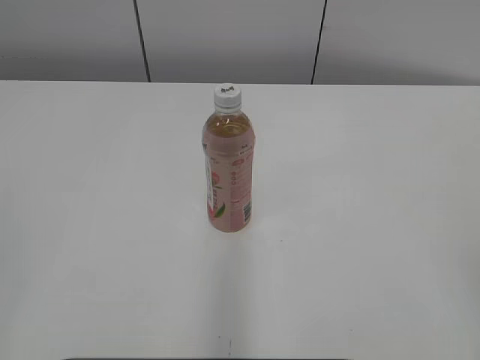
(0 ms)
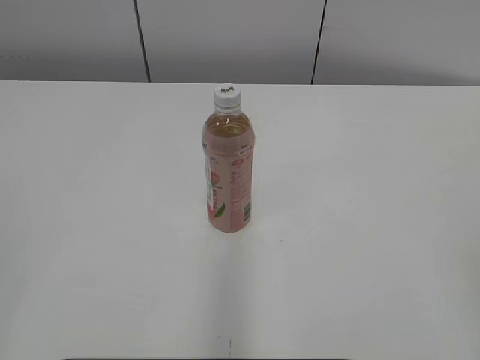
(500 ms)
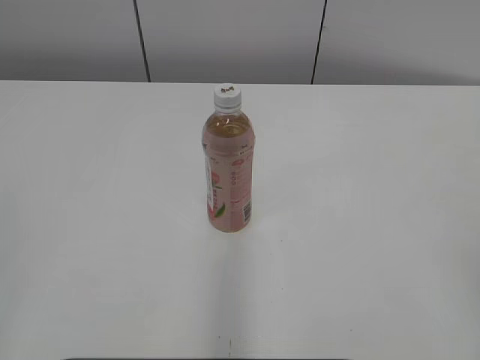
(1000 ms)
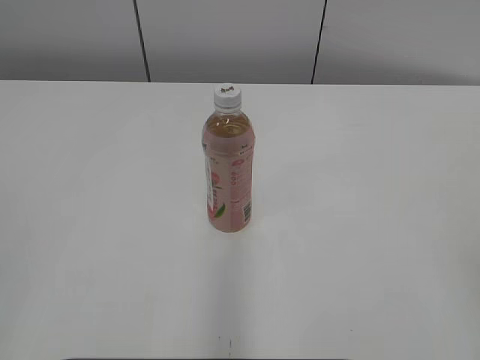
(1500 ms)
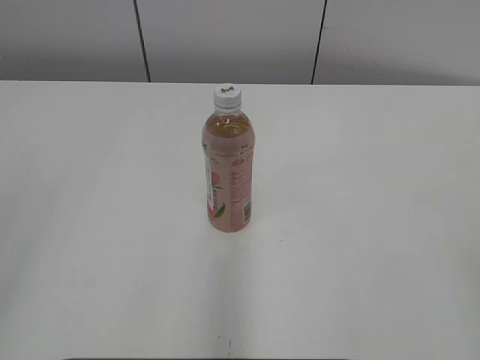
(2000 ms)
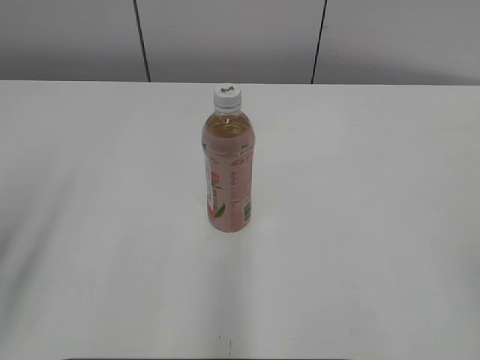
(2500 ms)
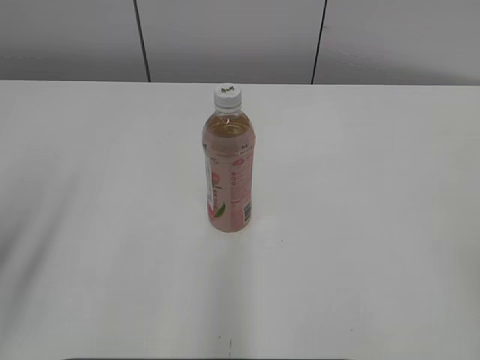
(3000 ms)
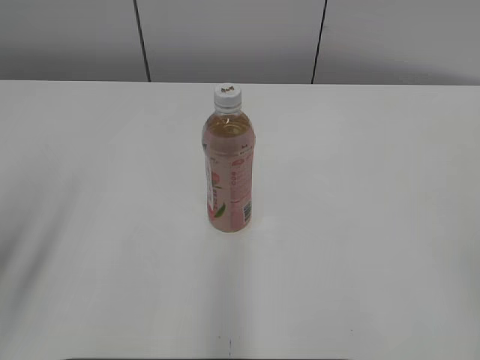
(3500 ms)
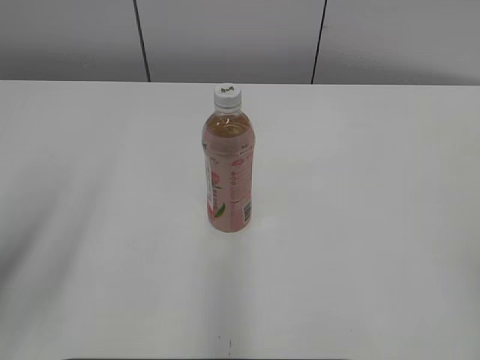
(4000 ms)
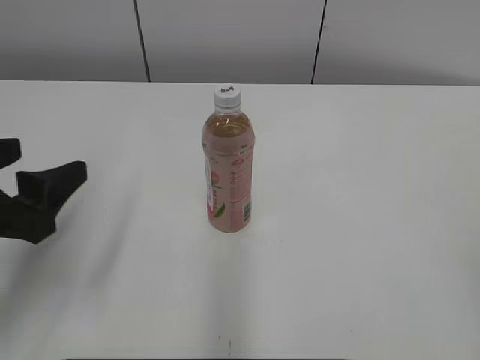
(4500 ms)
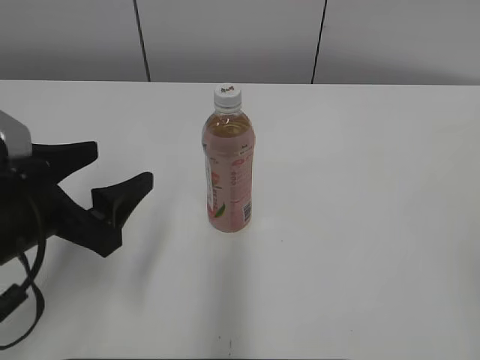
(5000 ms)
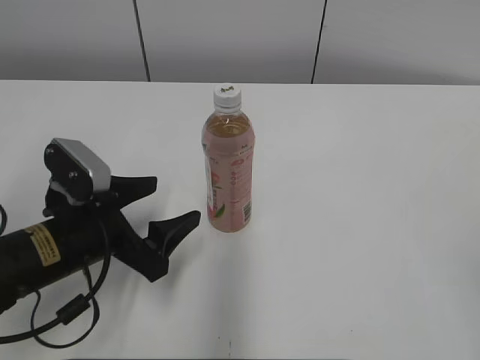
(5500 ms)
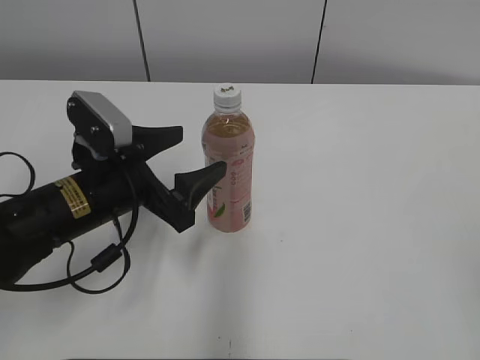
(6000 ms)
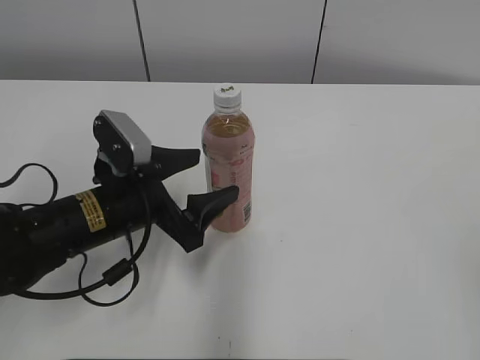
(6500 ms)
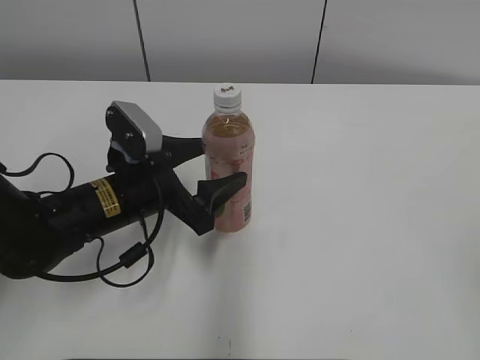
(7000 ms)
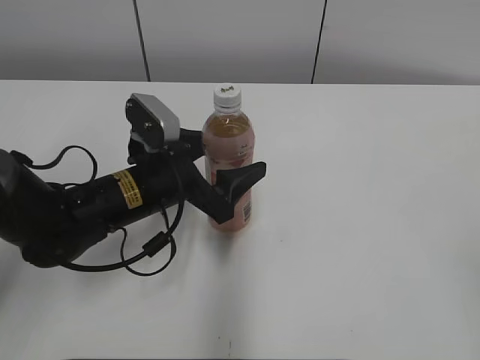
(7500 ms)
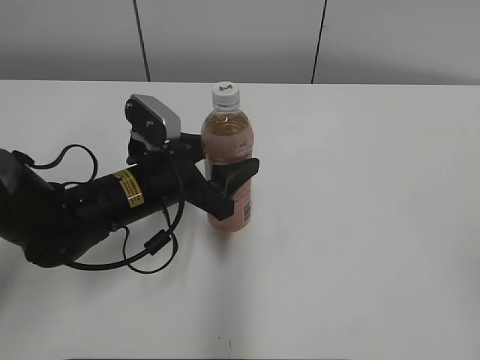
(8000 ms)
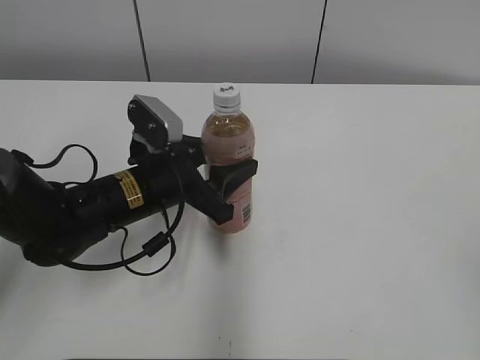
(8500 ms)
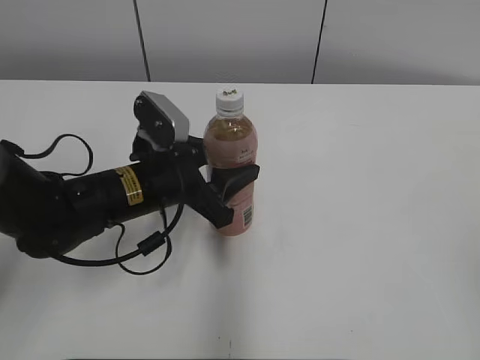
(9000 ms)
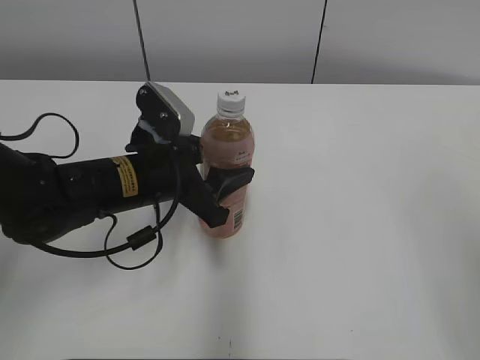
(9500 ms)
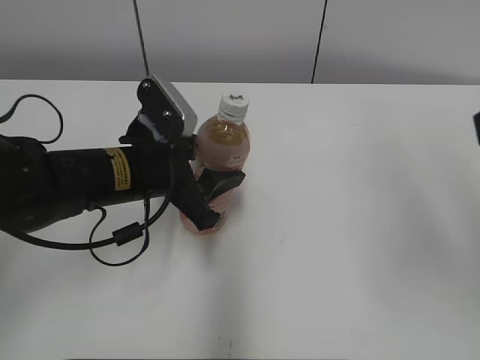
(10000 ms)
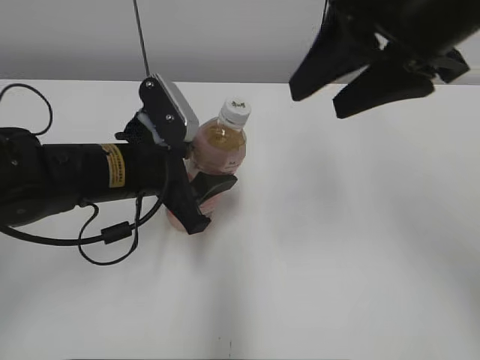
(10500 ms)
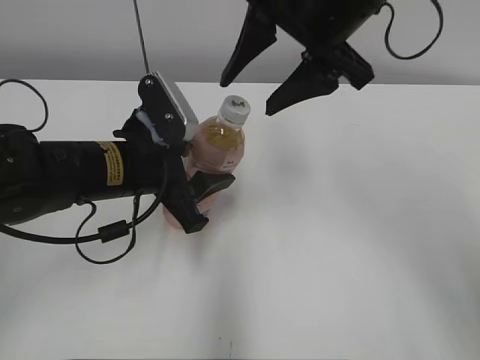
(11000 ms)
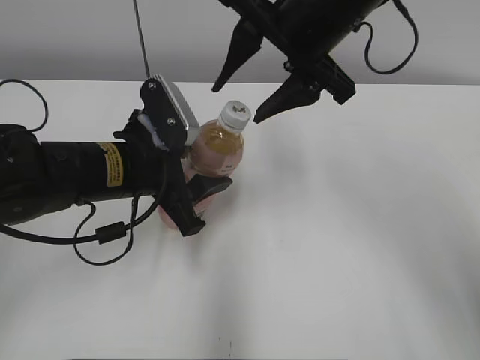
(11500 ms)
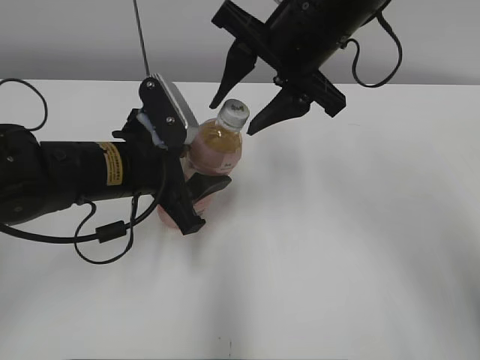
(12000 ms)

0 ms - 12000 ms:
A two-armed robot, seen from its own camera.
Step, 0 ms - 8000 ms: Grab the Peach Oolong Tea with the left hand.
2000 ms - 4000 ms: The left gripper shifts approximately 10 cm forward and downward.
4000 ms - 6000 ms: The left gripper goes approximately 25 cm forward, to the right and downward, and opens its fingers.
6000 ms - 8000 ms: The left gripper shifts by roughly 5 cm.
8000 ms - 10000 ms: The right gripper shifts roughly 20 cm forward and upward.
10000 ms - 12000 ms: The right gripper moves to the left and forward, some 25 cm.

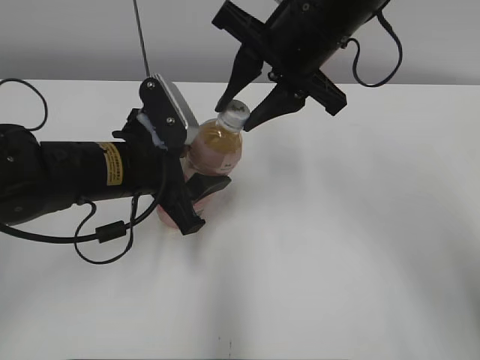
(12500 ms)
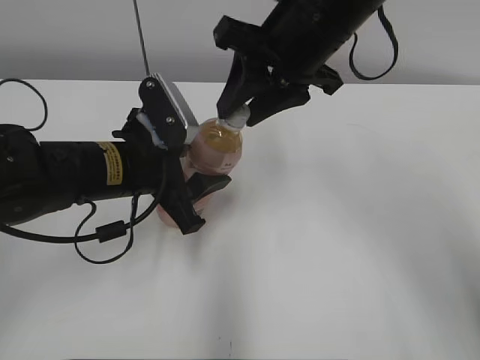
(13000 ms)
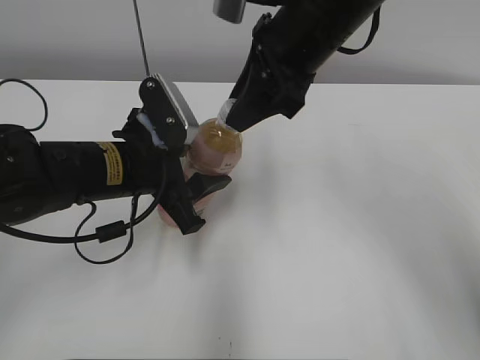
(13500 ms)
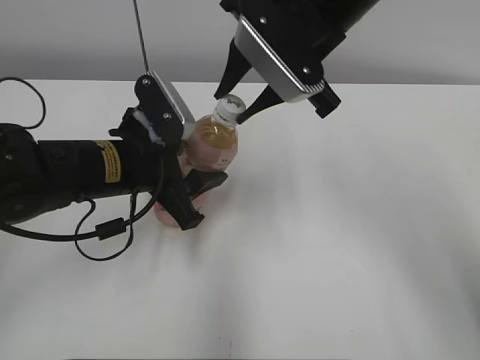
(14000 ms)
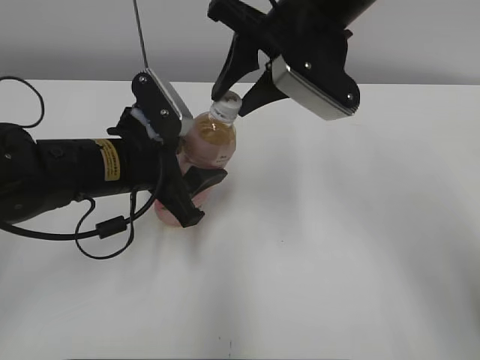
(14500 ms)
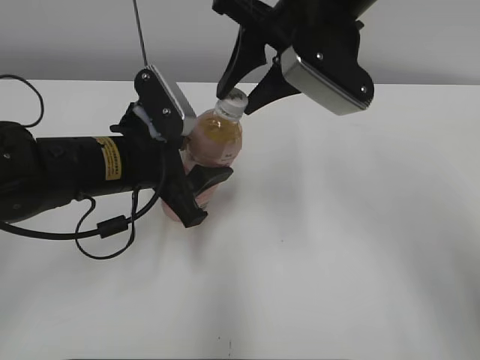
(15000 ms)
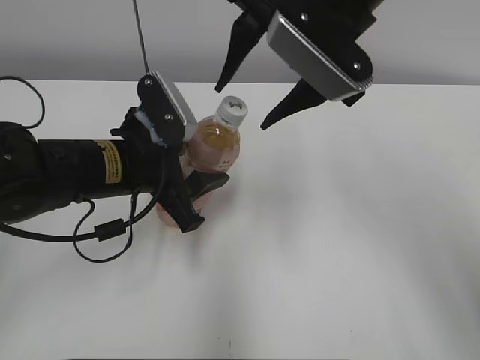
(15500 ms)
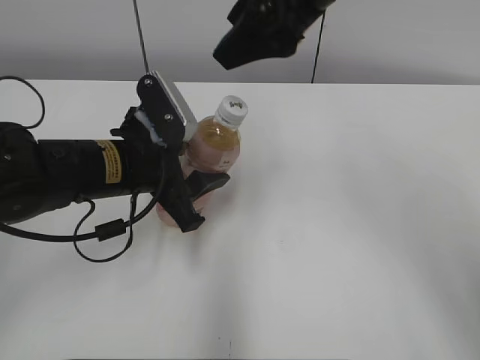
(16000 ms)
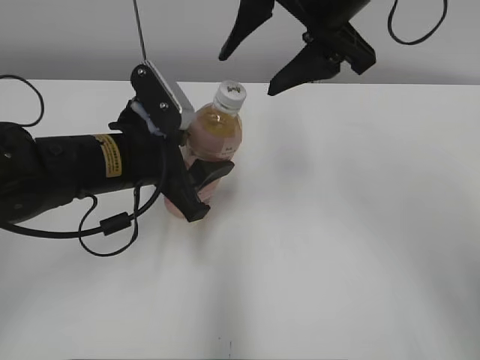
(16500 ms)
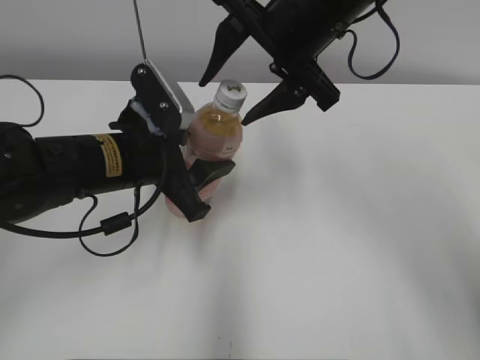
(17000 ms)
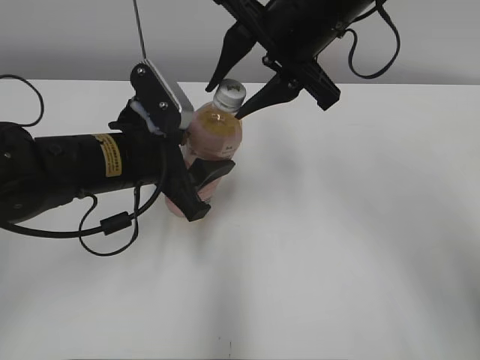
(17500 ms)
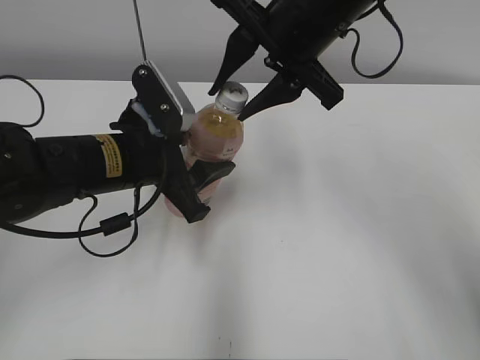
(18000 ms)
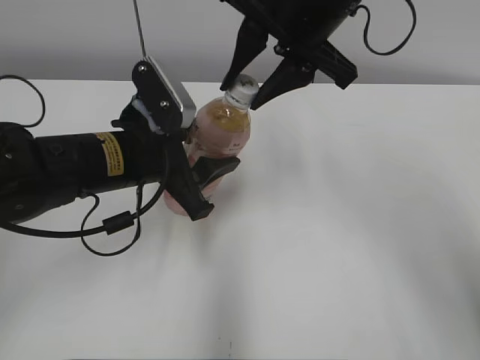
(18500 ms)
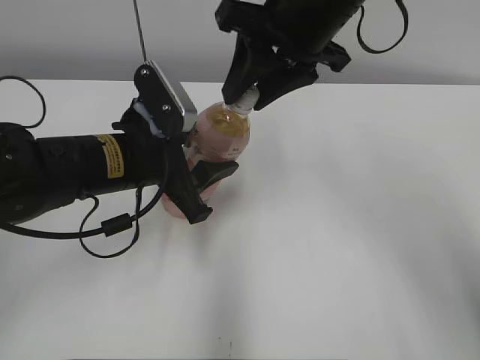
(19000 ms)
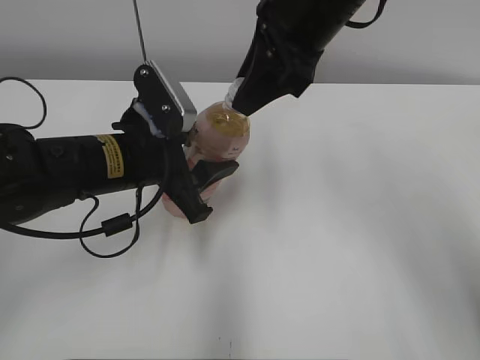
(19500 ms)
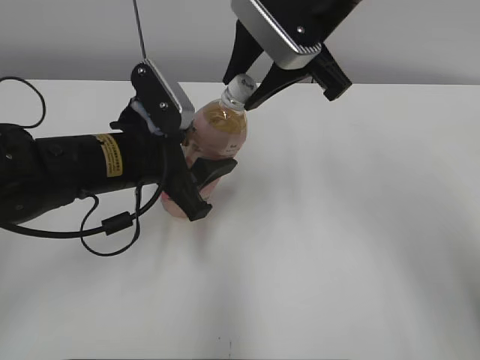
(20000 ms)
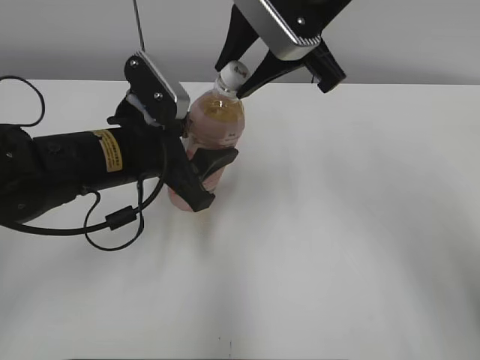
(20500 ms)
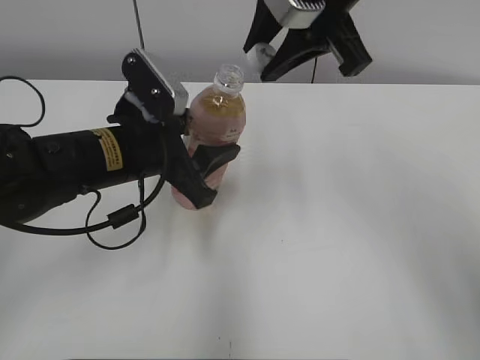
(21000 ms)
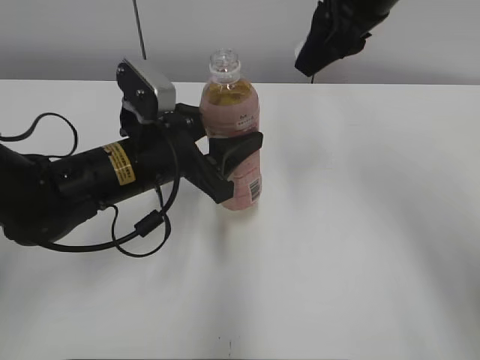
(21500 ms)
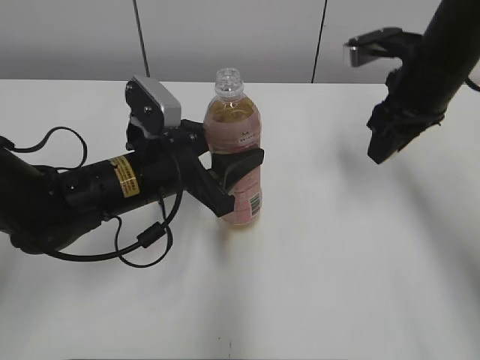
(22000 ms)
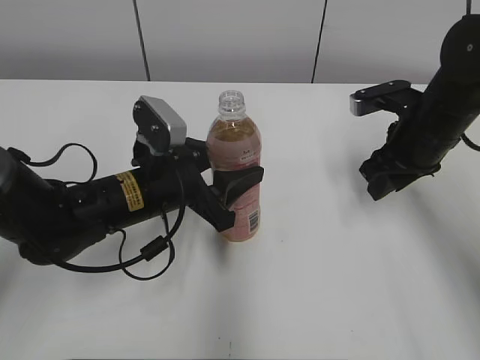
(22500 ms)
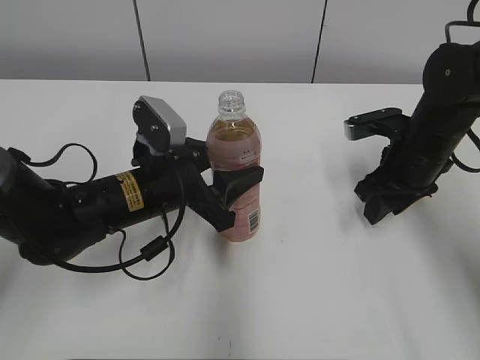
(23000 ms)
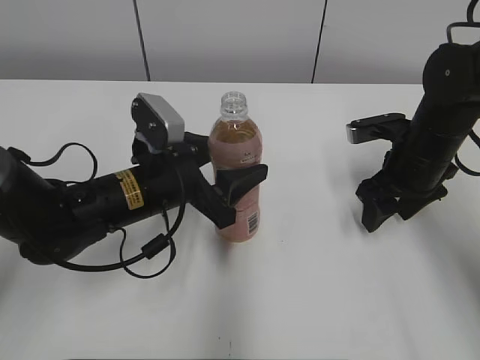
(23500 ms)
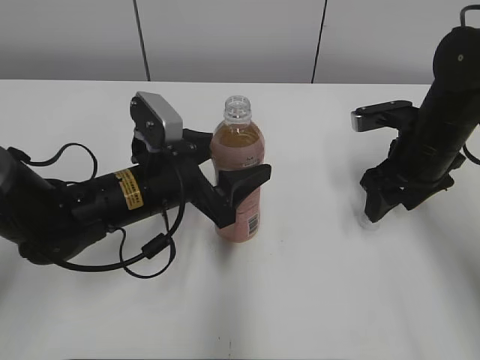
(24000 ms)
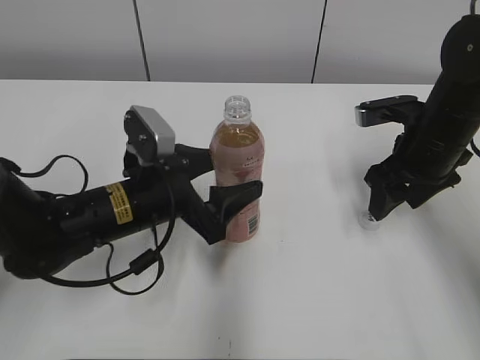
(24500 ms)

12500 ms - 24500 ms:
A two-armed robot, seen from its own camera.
Step, 12500 ms - 21000 ms: Secure the Peach Oolong Tea with the left hand.
Step, 21500 ms - 23500 ms: Place the bottle cap on the right.
Step, 24000 ms - 24500 ms: Place the Peach Oolong Tea with the left hand.
14500 ms - 16500 ms: The right gripper moves roughly 5 cm, and opens its fingers.
16500 ms - 18500 ms: The right gripper closes up.
20500 ms - 22500 ms: The right gripper moves downward and to the right, about 20 cm; the left gripper moves downward, roughly 5 cm.
22500 ms - 24500 ms: The right gripper opens its fingers. Meanwhile the left gripper opens its fingers.

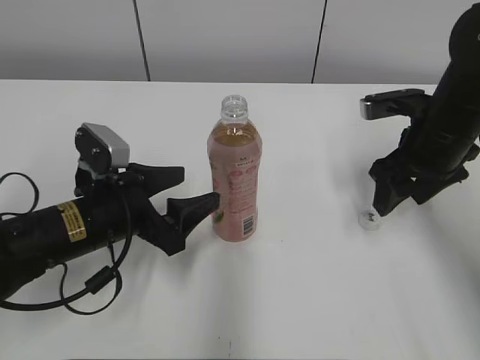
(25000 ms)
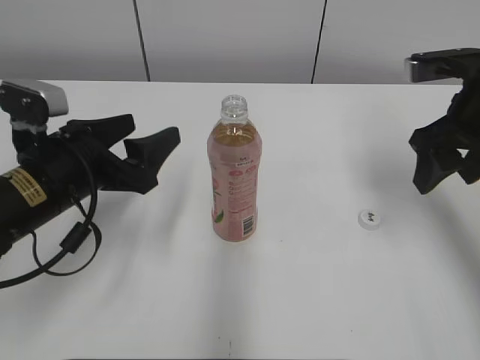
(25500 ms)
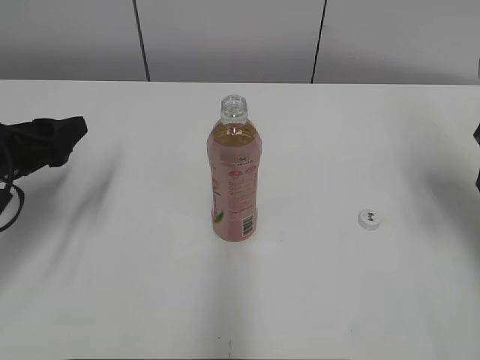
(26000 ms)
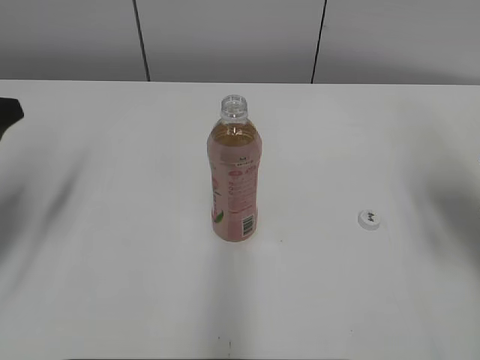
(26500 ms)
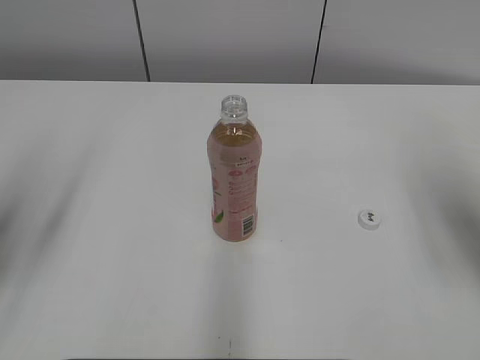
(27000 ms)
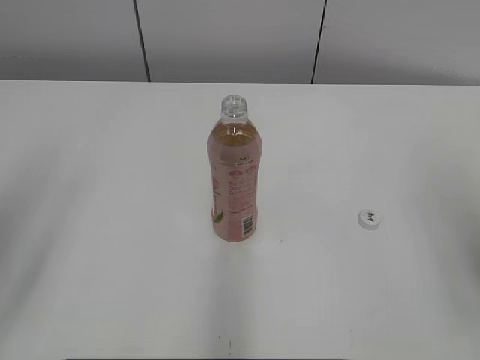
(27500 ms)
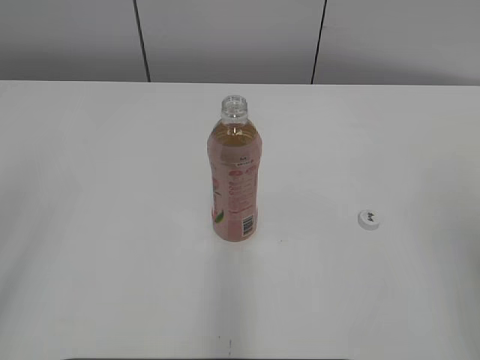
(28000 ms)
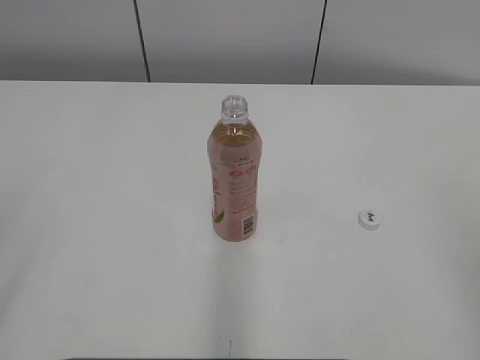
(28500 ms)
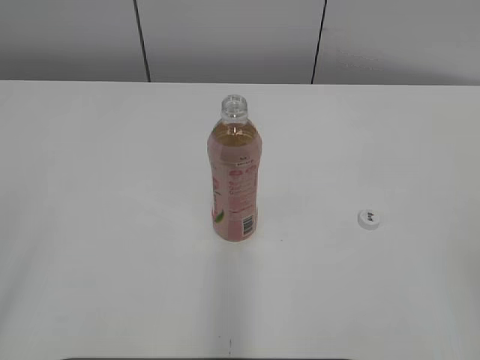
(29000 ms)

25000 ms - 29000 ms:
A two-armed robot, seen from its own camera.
25000 ms - 27000 ms: The left gripper travels upward, to the left and backward by roughly 25 cm. The right gripper goes roughly 15 cm upward, backward and to the right.
27000 ms - 29000 ms: The right gripper goes roughly 25 cm backward. The left gripper shifts roughly 15 cm backward.
